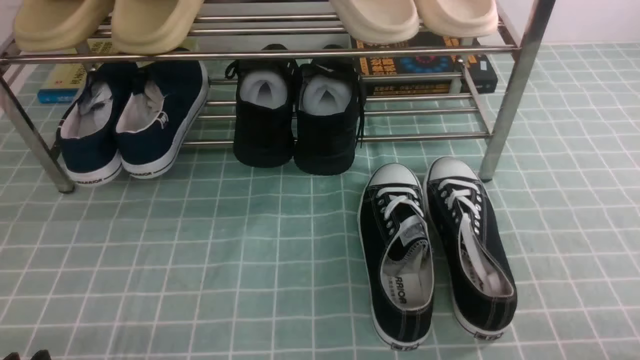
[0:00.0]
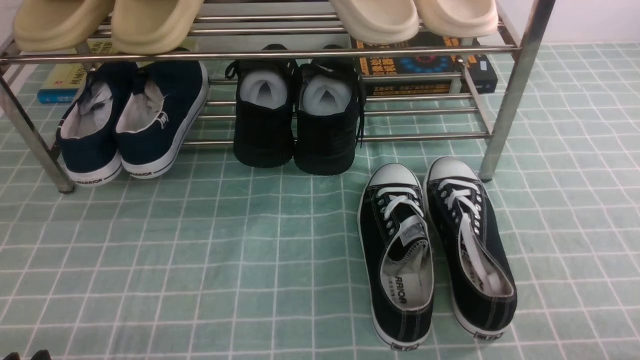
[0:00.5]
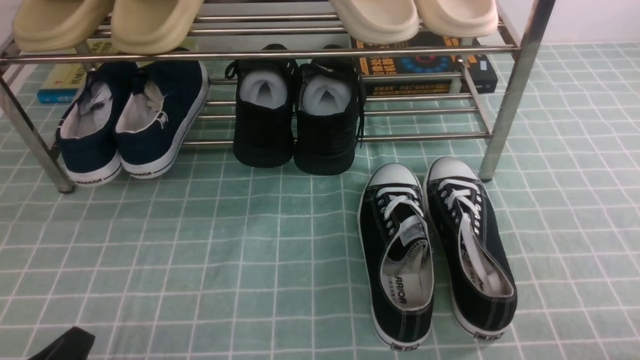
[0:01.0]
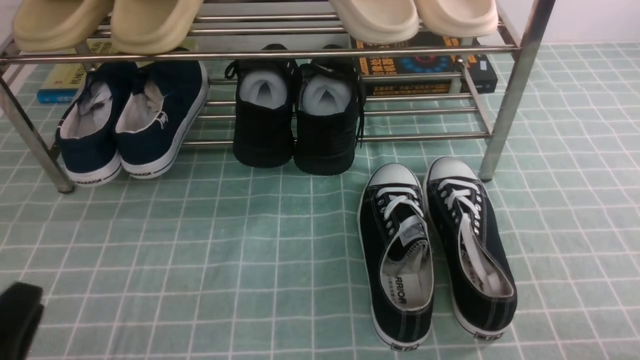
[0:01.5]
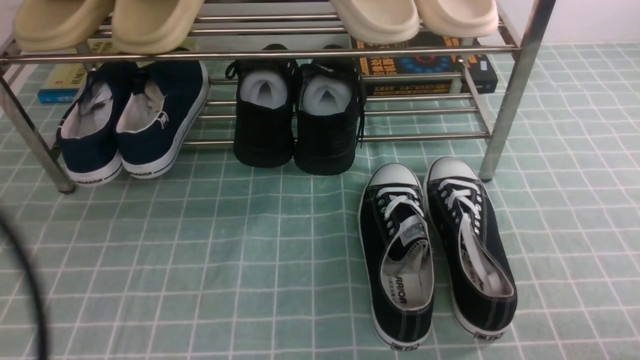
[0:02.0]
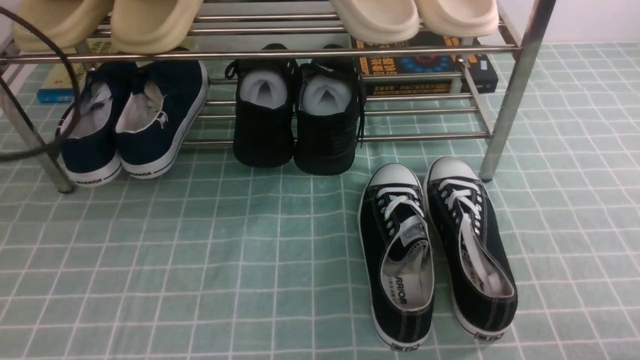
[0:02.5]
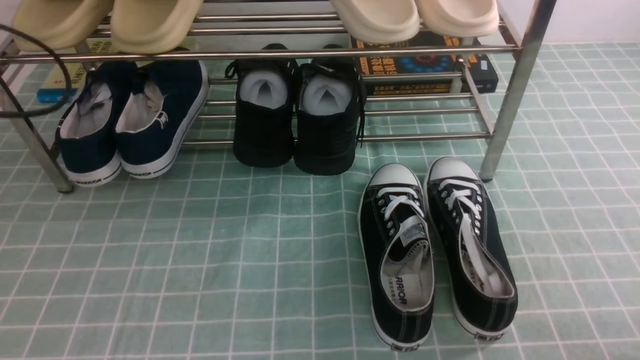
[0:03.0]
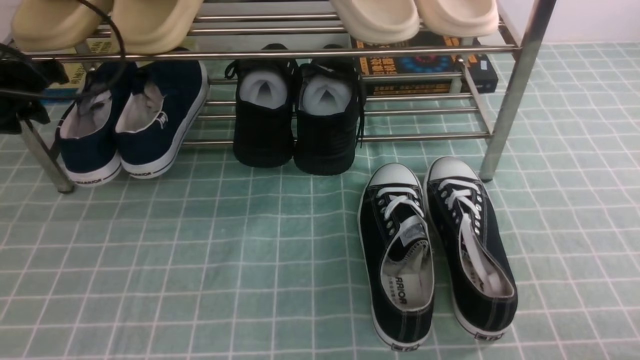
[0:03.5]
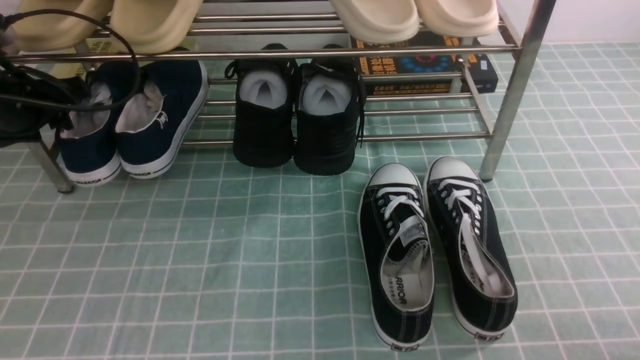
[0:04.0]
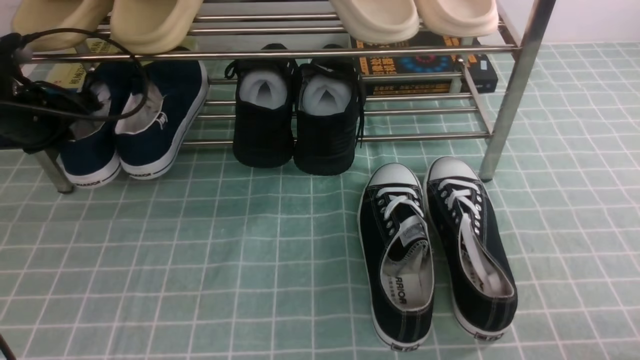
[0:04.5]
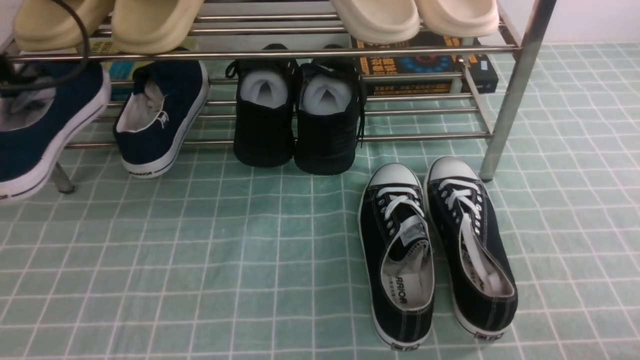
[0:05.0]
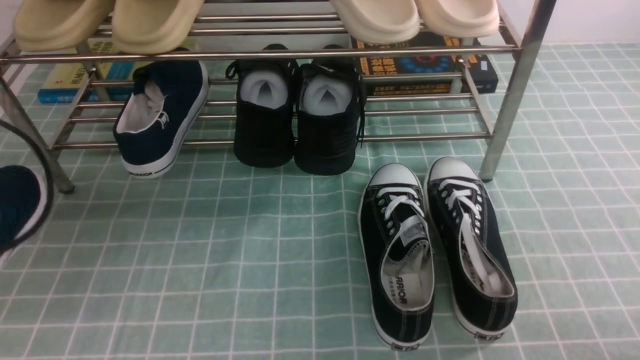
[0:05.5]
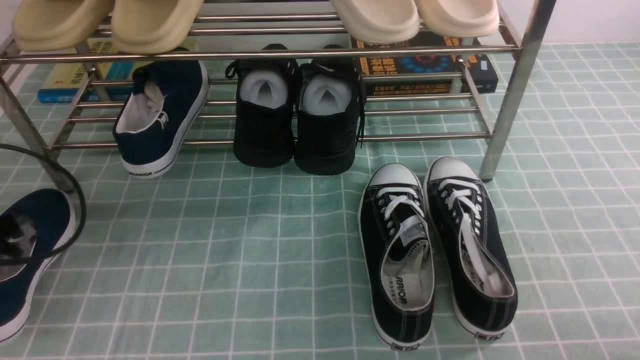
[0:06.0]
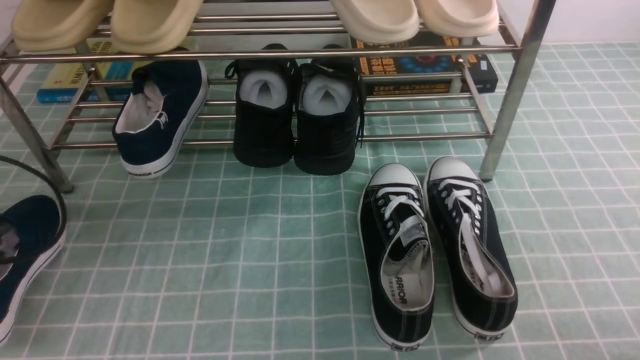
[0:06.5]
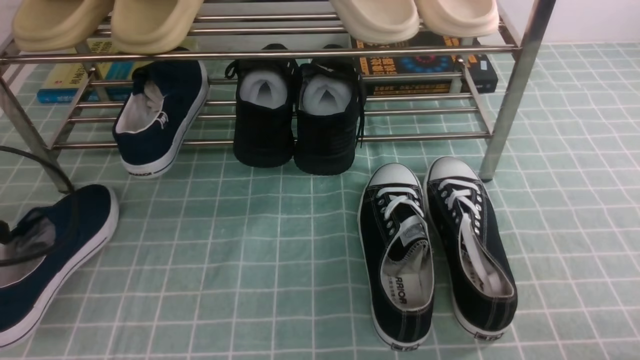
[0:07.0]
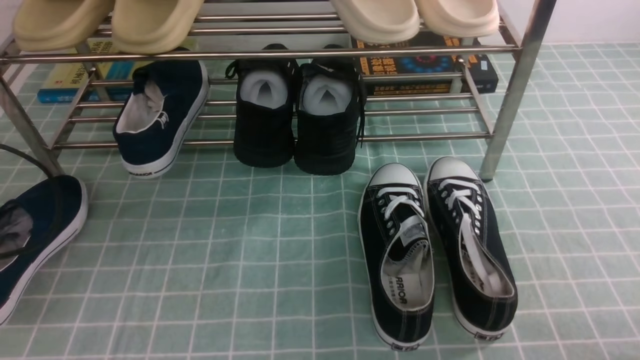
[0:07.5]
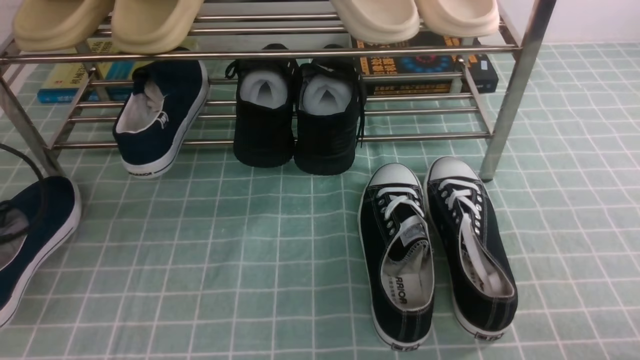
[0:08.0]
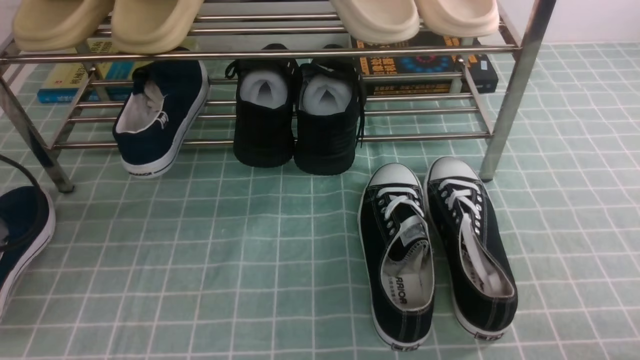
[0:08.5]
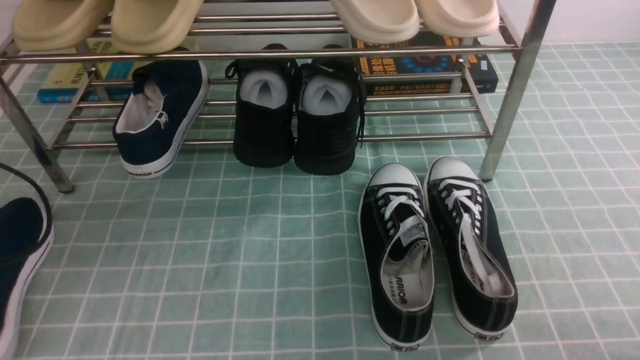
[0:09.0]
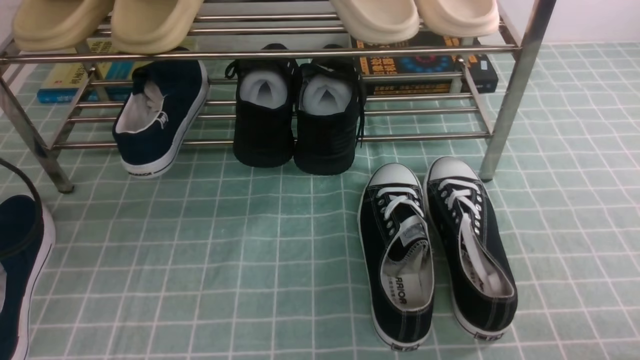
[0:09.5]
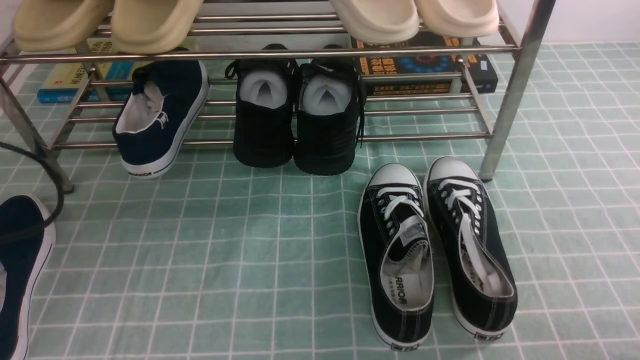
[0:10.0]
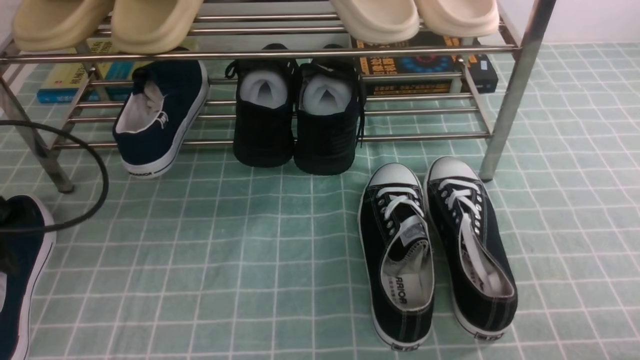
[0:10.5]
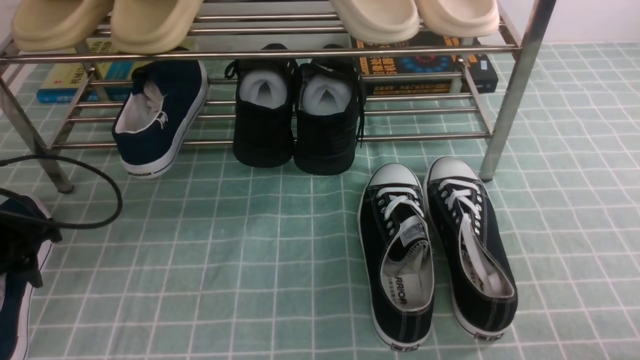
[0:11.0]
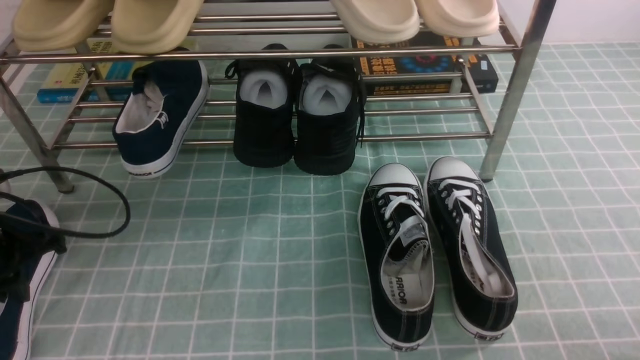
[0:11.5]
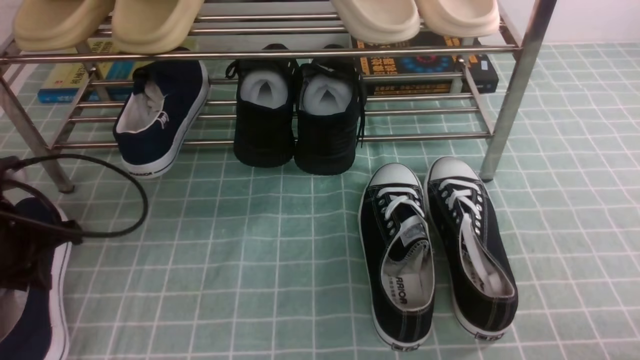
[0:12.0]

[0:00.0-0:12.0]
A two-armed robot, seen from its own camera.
Step, 0:00.0 to 0:04.5: use the left arm to clamp a shoe on the left side of the shoe rack.
0:00.0 to 0:02.0: The left gripper shifts about 20 cm upward, and closes up.
0:02.0 to 0:04.0: The left gripper is displaced forward by approximately 30 cm, and opens.
0:04.0 to 0:06.0: The left gripper is displaced backward by approximately 15 cm, and closes its fingers.
0:06.0 to 0:08.0: The grippers move only a little.
0:08.0 to 0:10.0: The left gripper changes place by some 5 cm, and opens, then closes once more.
0:10.0 to 0:12.0: The left gripper shifts roughly 10 cm forward and downward, and opens and closes again.

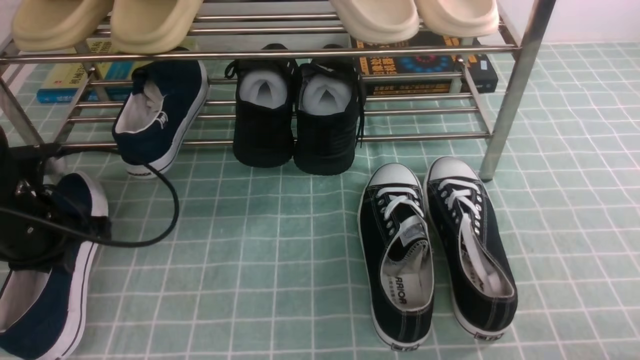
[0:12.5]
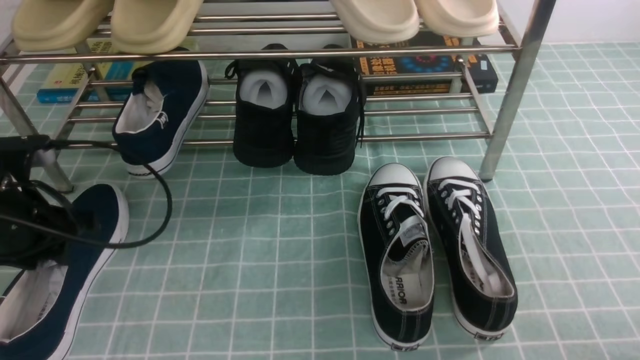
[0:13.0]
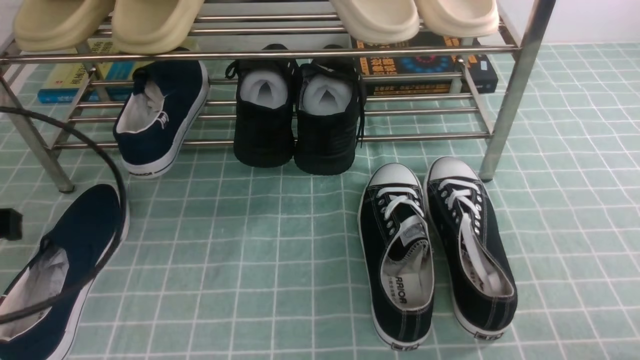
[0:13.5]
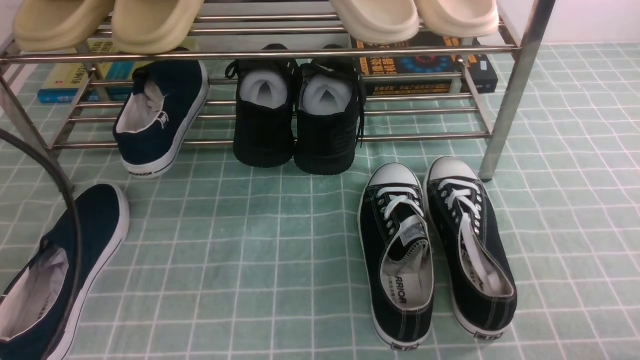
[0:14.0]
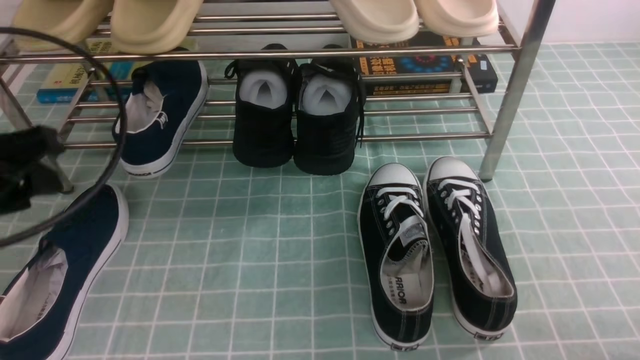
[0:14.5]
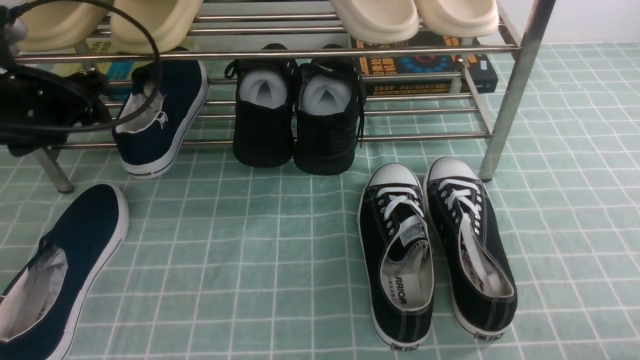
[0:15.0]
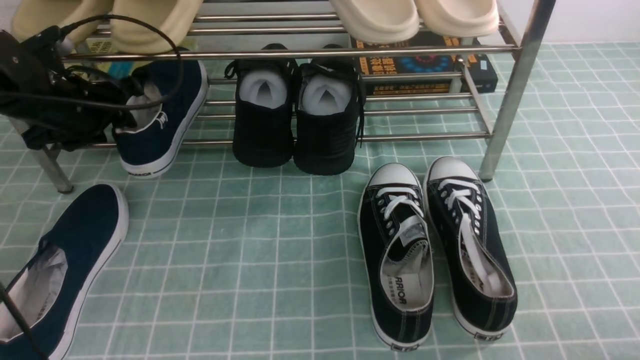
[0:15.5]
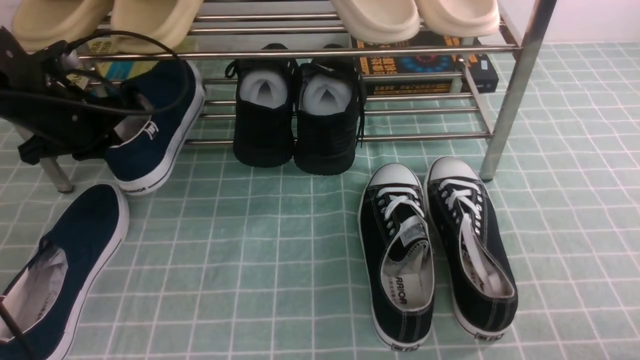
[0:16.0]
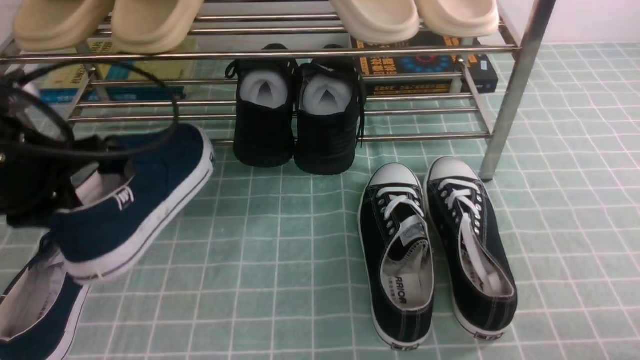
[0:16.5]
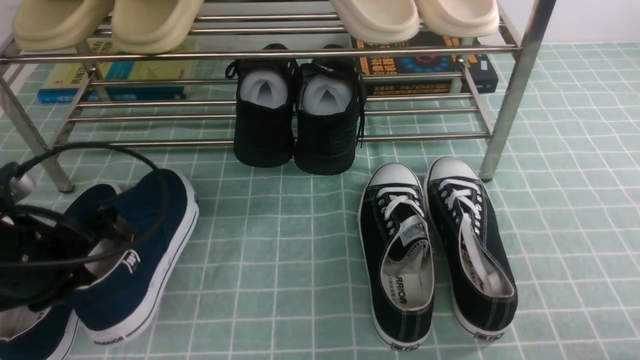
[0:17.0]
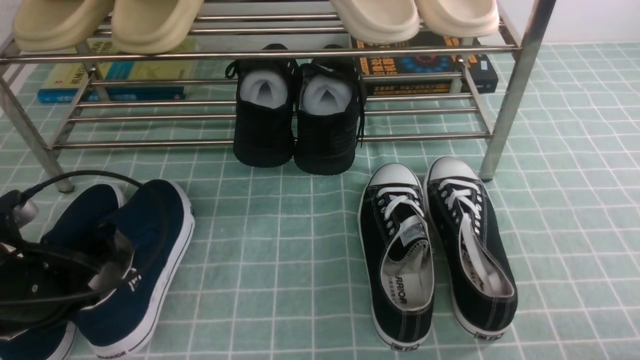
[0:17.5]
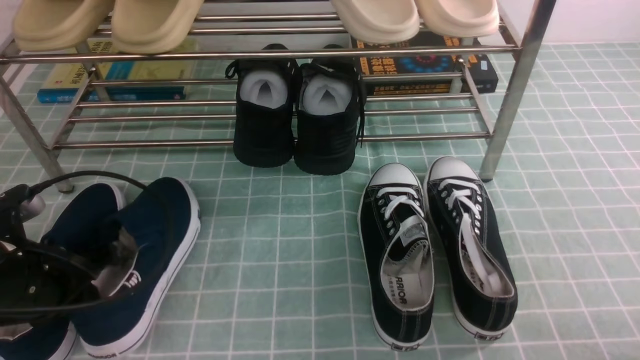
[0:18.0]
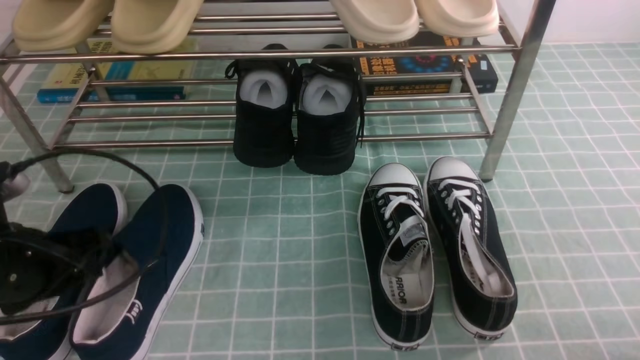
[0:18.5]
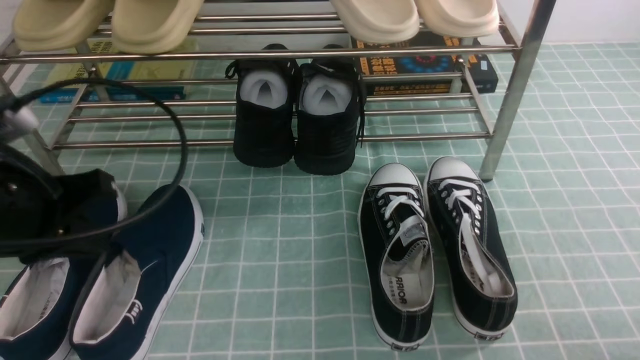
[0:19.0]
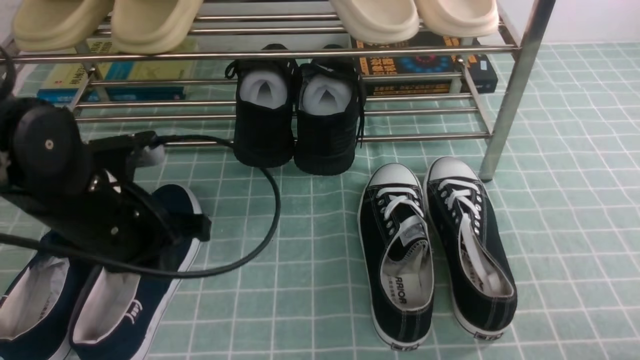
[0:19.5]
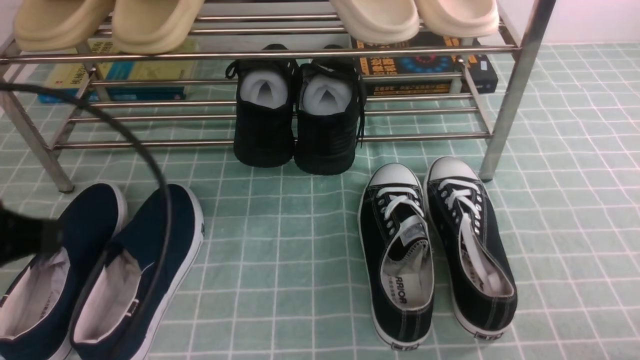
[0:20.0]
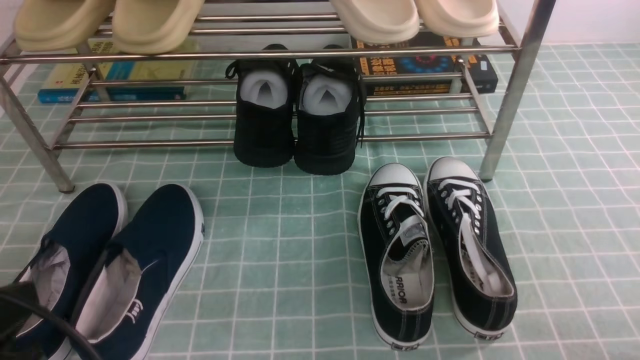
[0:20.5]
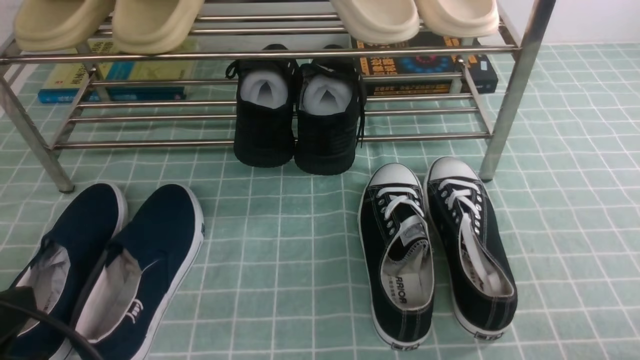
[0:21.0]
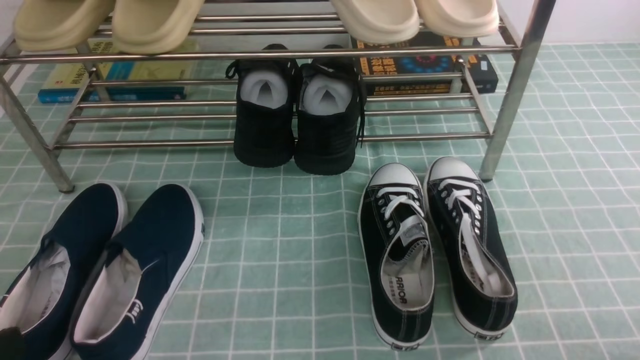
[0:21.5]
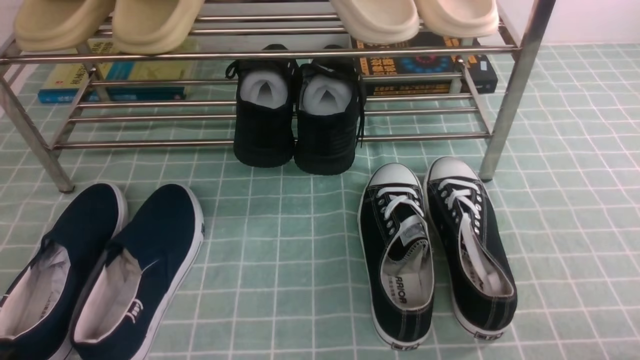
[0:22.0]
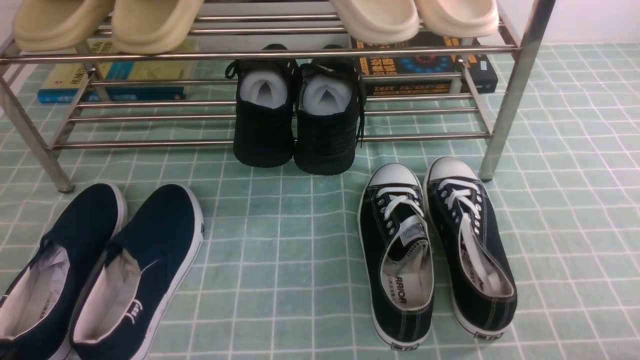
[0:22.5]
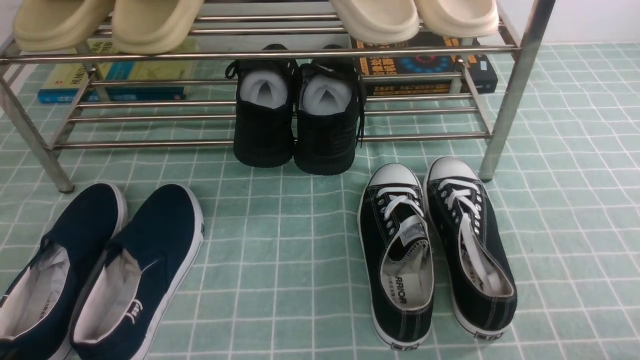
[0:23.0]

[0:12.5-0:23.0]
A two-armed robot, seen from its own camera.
Step, 0:13.5 to 0:15.5: use the left arm to clamp a shoe on the left side of the shoe rack.
Step, 0:16.0 to 0:18.5: Use your left arm to remove the clamped shoe from the shoe rack and put it down.
0:12.5 to 0:14.5: The left gripper goes about 15 cm upward and backward, and opens up.
0:14.5 to 0:16.5: The left gripper reaches about 20 cm forward, then returns, and closes up.
0:16.5 to 0:19.0: The left gripper reaches approximately 10 cm downward, then returns, and opens and closes again.
0:19.0 to 0:21.0: The left gripper shifts approximately 15 cm backward.
0:21.0 to 0:23.0: The left gripper heads downward, covering roughly 10 cm.
